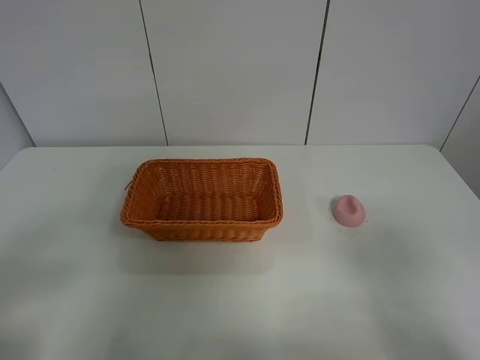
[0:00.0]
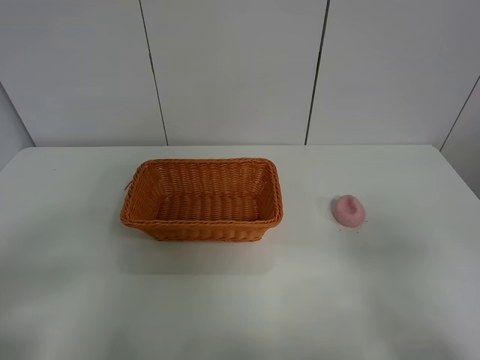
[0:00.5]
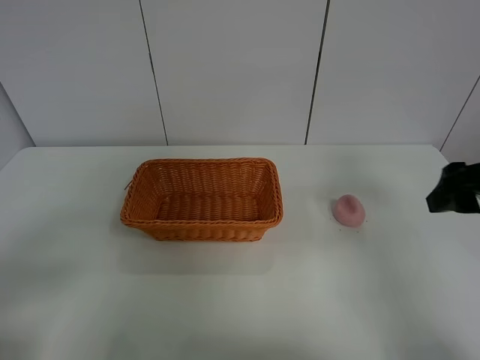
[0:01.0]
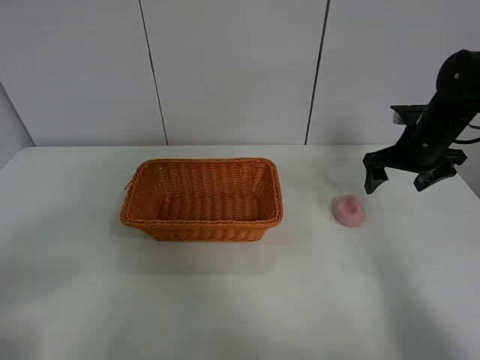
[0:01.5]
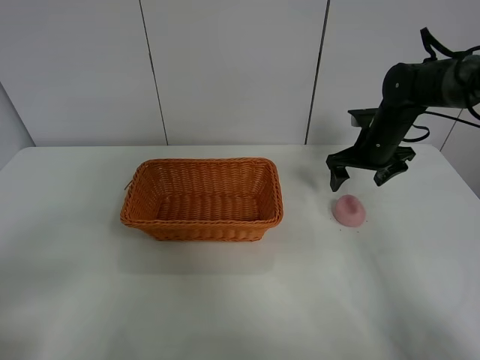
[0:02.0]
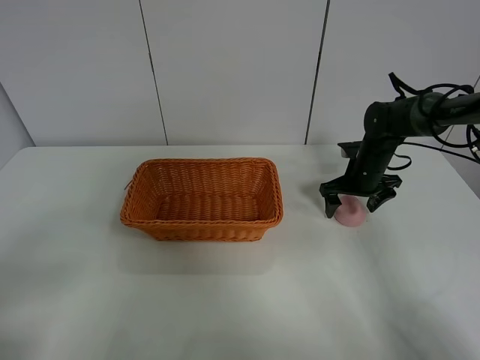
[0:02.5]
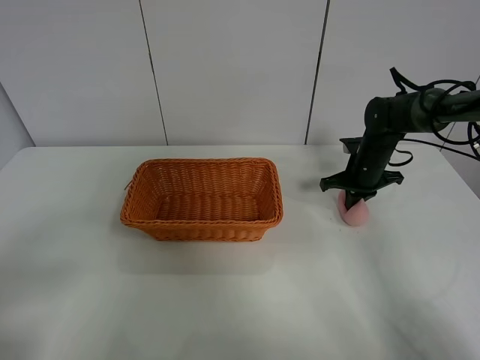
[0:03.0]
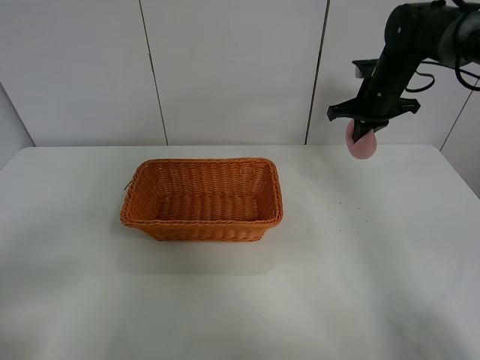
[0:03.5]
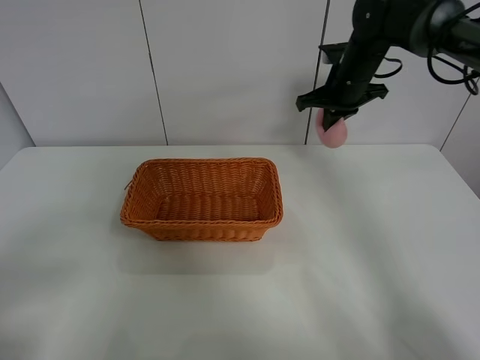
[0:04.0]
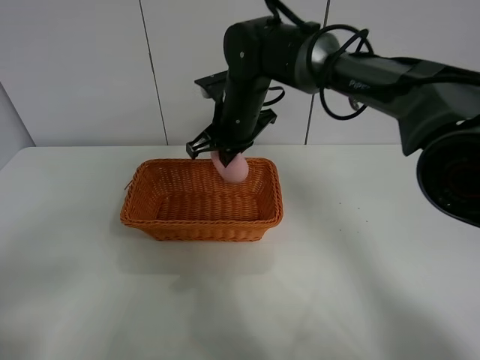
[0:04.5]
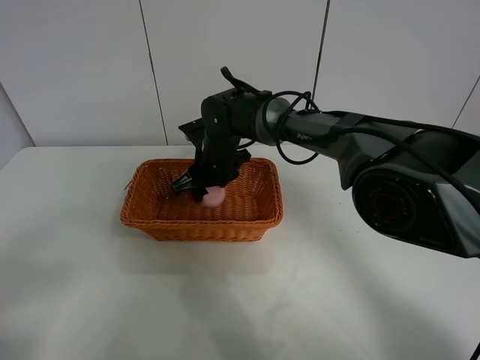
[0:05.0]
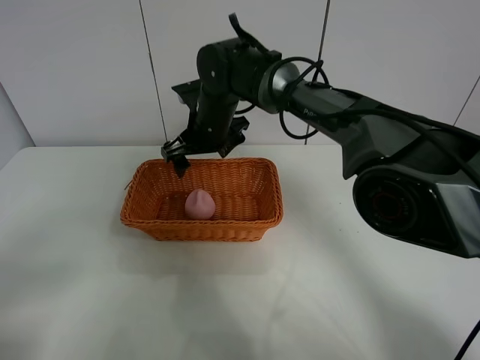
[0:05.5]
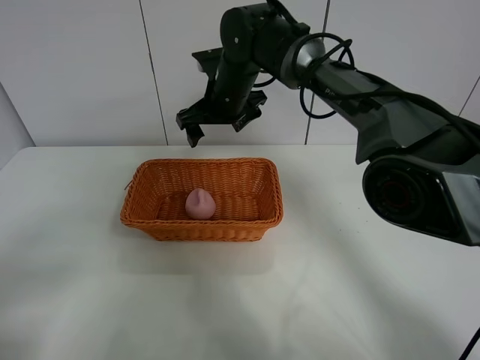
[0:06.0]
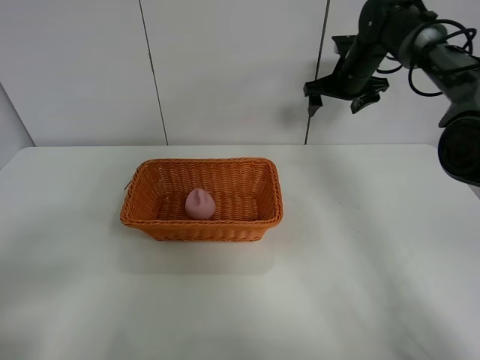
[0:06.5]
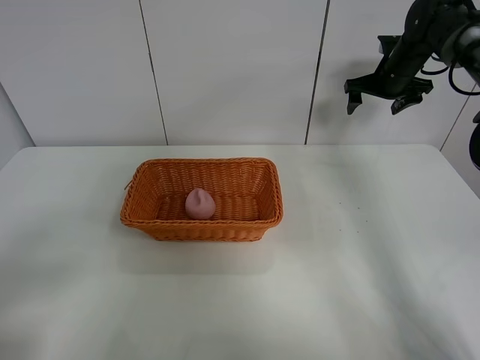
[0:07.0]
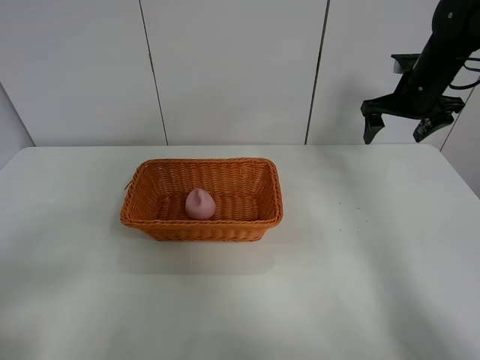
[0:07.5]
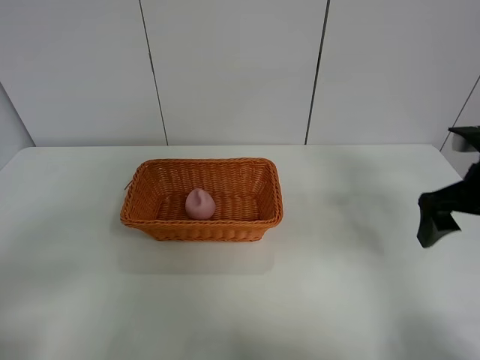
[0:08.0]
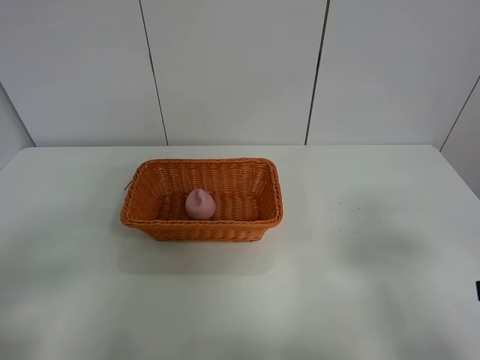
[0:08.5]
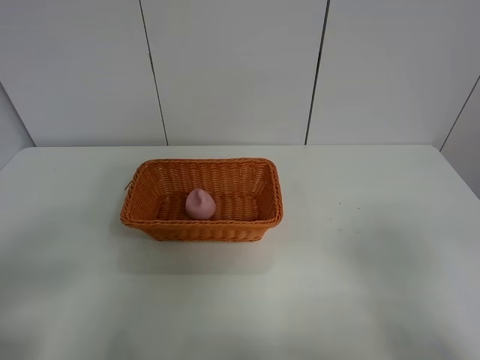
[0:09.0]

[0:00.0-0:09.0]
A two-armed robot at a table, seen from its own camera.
Step, 0:00.0 to 0:03.0: Grasp the peach with right gripper.
Step, 0:03.5 to 0:05.5: Place the peach in the basket with right gripper.
0:00.0 to 0:02.0: The right gripper moves forward, about 40 cm.
0:02.0 to 0:04.5: The right gripper shifts some 25 cm to the left, and closes its fingers.
0:04.5 to 0:07.0: The right gripper moves to the right and forward, about 35 cm, and opens up.
0:07.0 to 0:09.0: The right gripper is displaced backward by some 50 cm.
